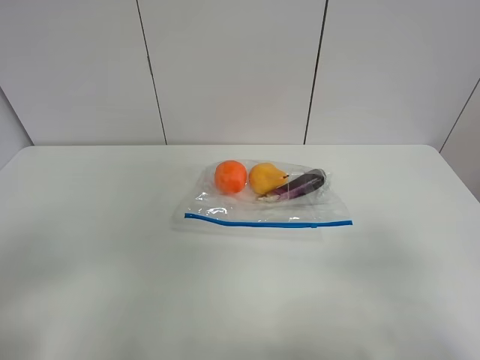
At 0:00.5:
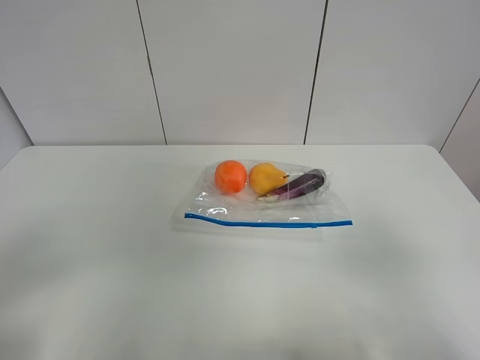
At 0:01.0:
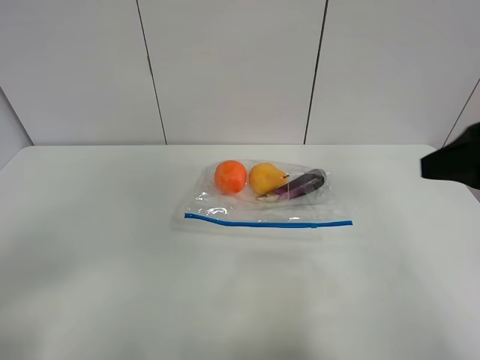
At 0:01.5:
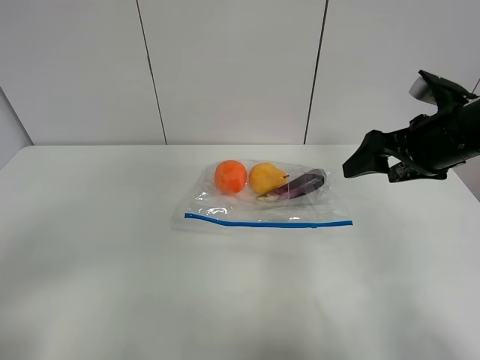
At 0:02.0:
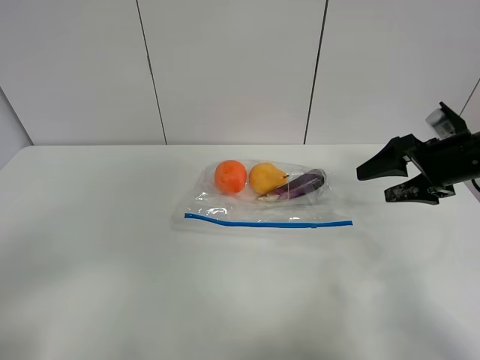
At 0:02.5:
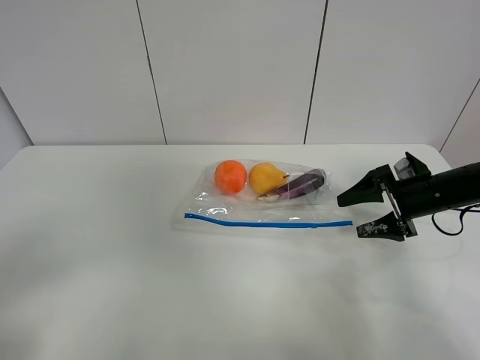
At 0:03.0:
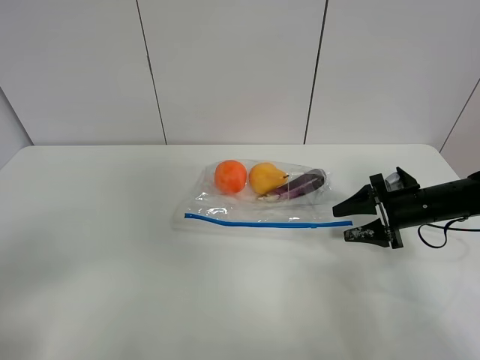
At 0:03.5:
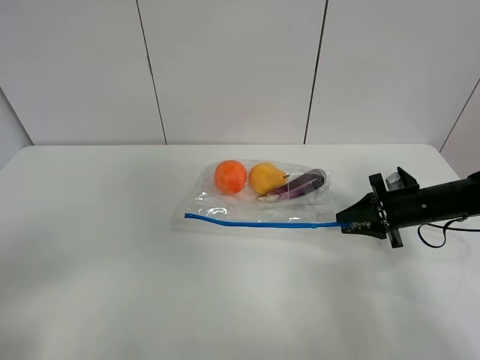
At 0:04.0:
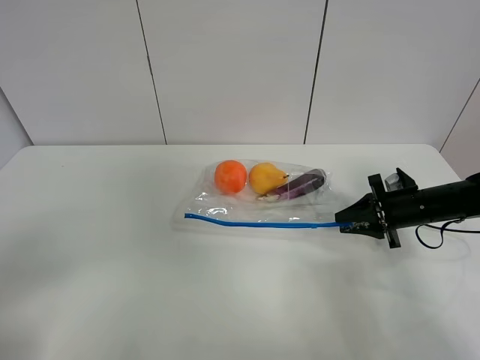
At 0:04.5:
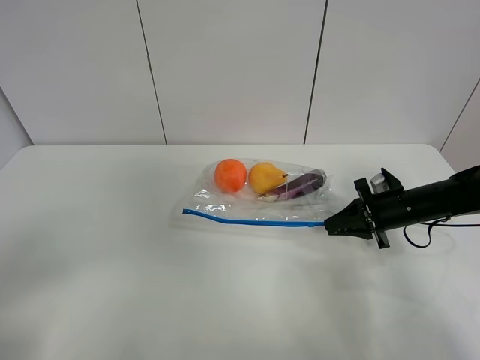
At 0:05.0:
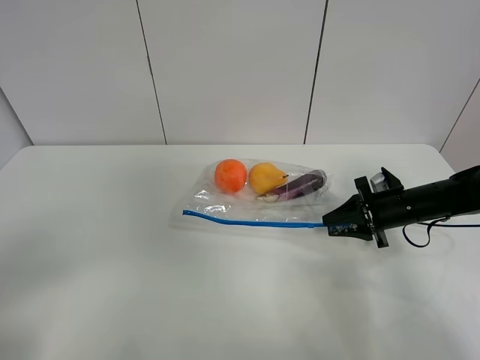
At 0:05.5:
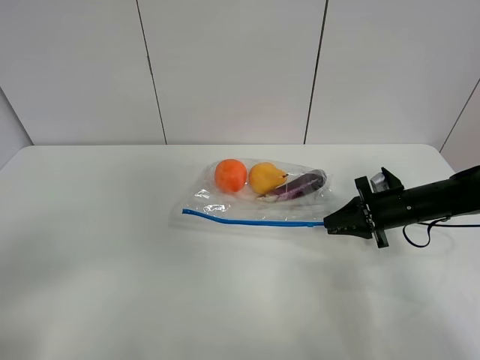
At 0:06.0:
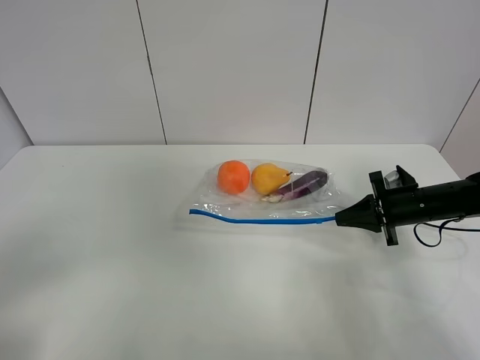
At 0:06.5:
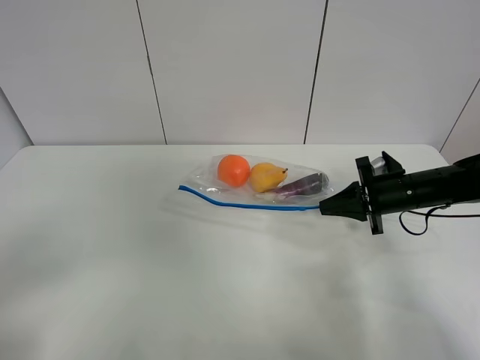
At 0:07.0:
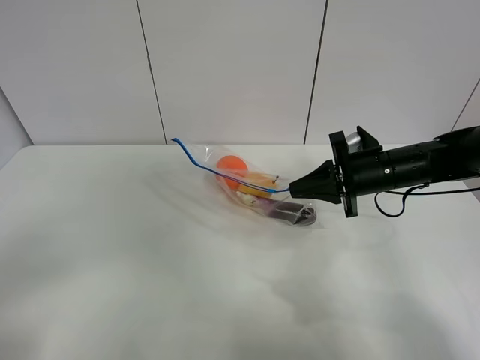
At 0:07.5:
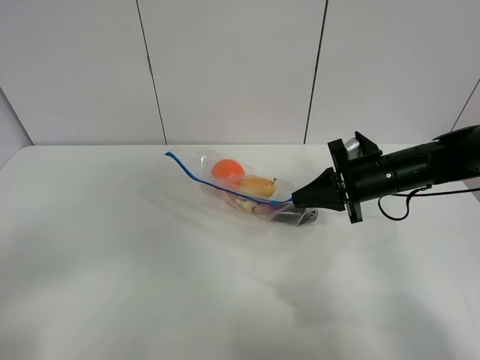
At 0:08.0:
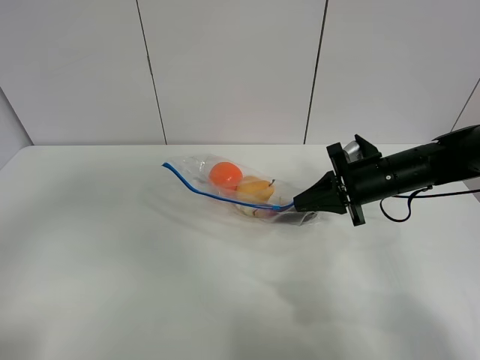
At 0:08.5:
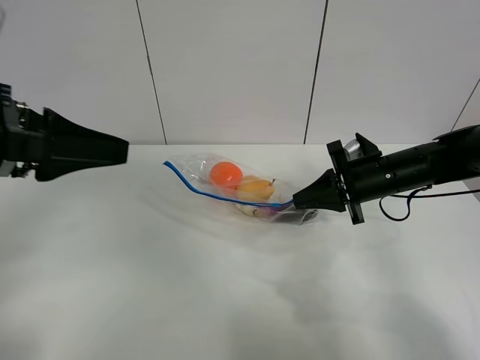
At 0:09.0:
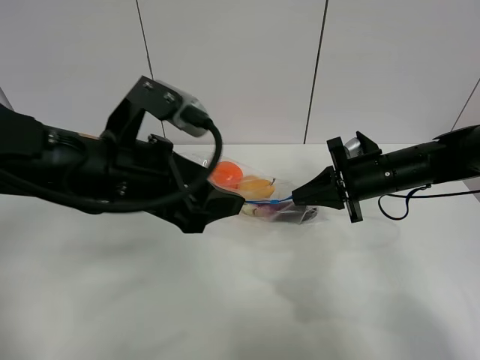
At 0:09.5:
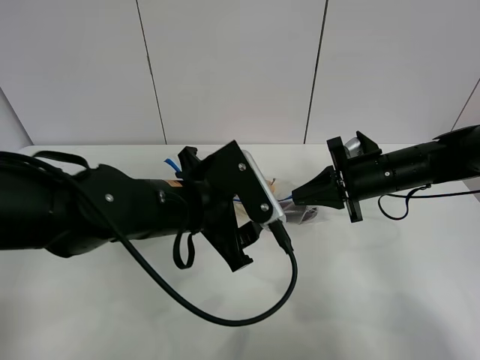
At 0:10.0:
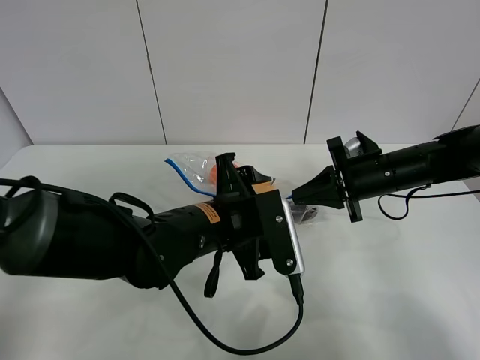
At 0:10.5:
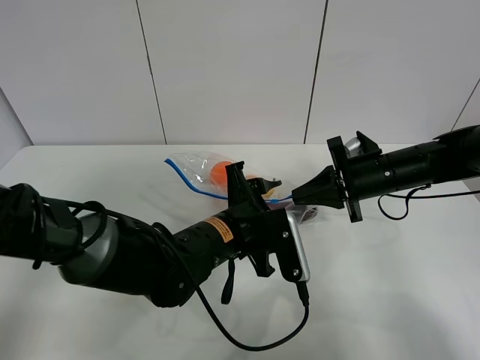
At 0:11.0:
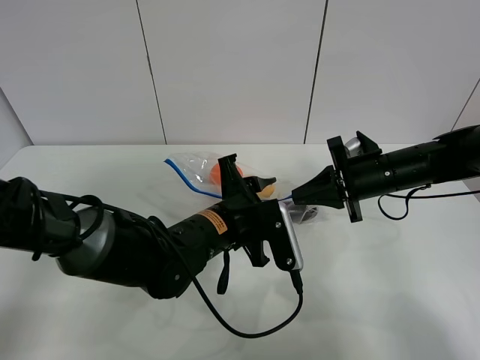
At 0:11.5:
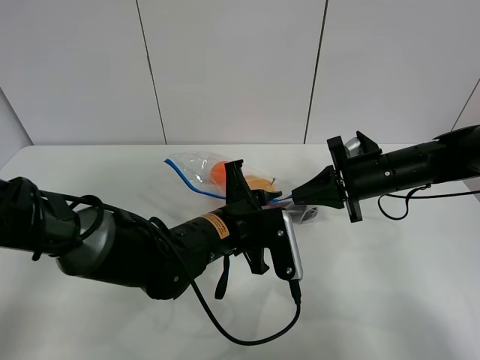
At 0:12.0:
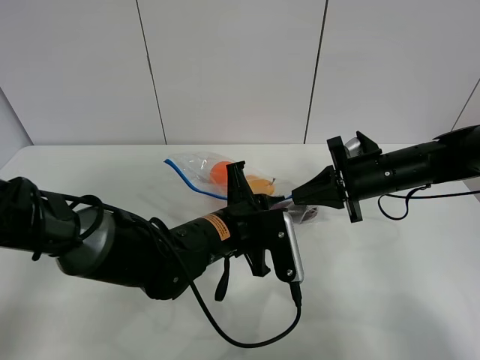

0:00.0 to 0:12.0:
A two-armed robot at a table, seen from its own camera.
Step, 0:00.0 to 0:05.5: Grasp the fruit bag with right gripper.
Step, 0:06.0 to 0:07.0: Lift the fruit bag with your right gripper.
0:00.0 to 0:02.0: The right gripper is displaced forward by about 30 cm.
0:02.0 to 0:04.0: The right gripper shifts roughly 10 cm downward, and closes up.
0:04.0 to 0:06.0: The grippers make only small movements.
0:06.0 to 0:08.0: The right gripper goes roughly 10 cm to the left and upward; the left gripper heads forward and upward, covering approximately 15 cm.
0:08.0 to 0:10.0: The left gripper travels to the right, downward and forward by some 35 cm.
0:10.0 to 0:12.0: The left gripper closes up.

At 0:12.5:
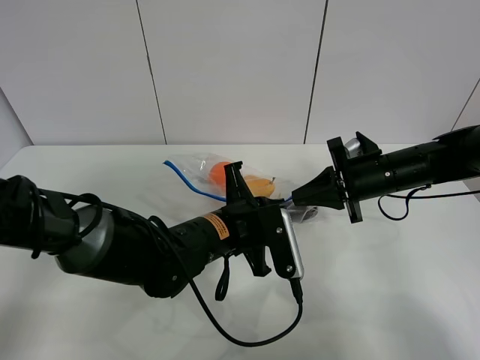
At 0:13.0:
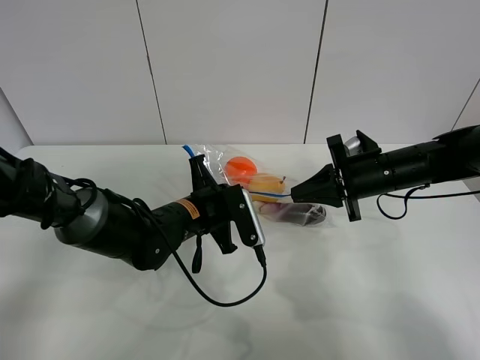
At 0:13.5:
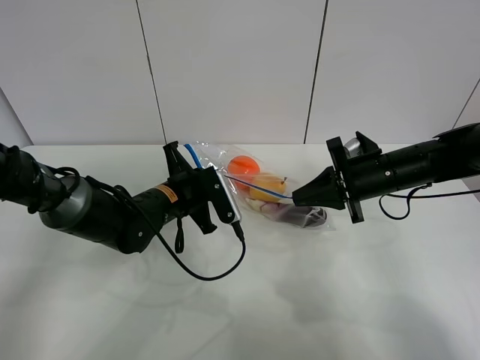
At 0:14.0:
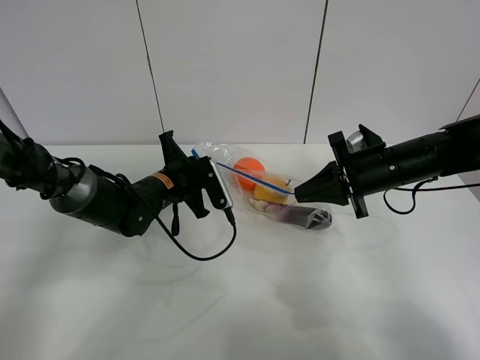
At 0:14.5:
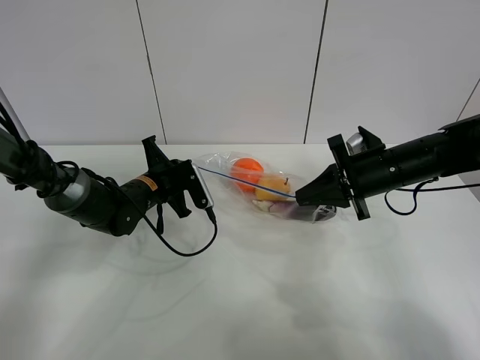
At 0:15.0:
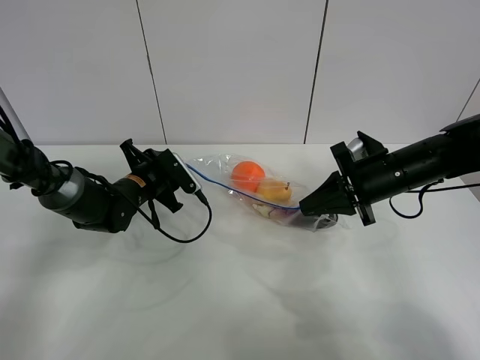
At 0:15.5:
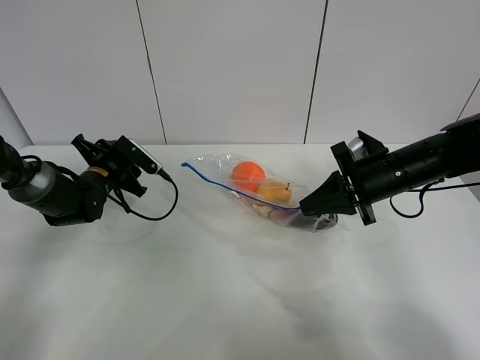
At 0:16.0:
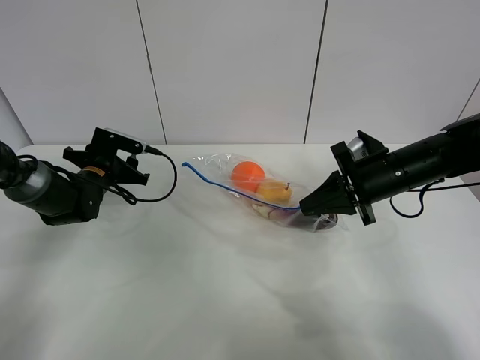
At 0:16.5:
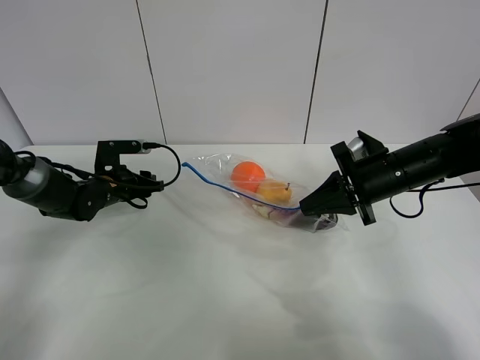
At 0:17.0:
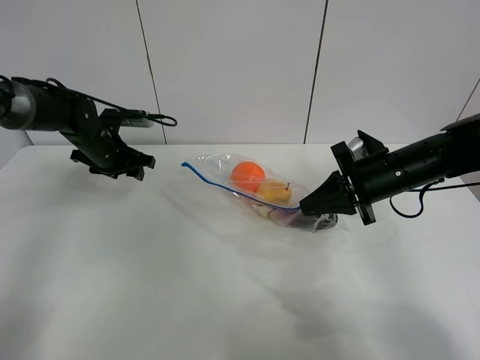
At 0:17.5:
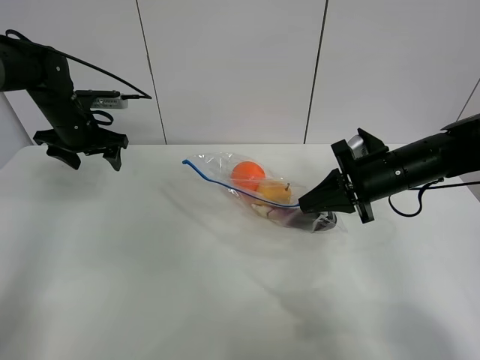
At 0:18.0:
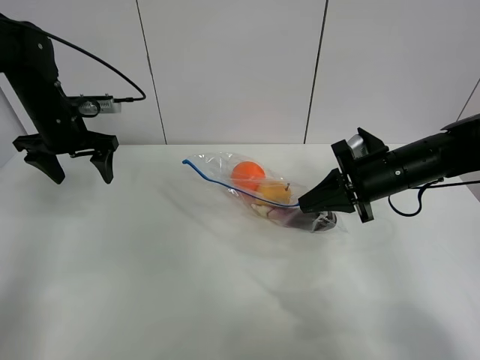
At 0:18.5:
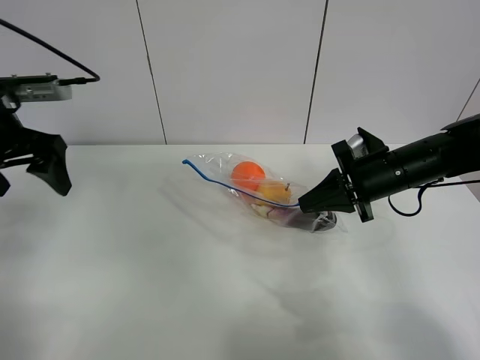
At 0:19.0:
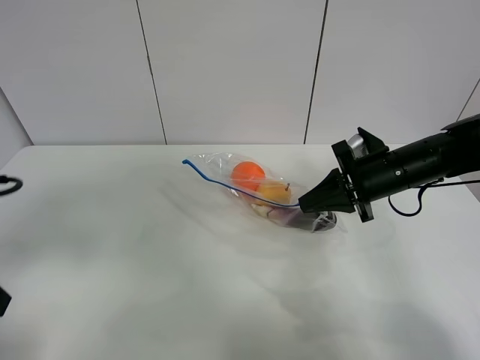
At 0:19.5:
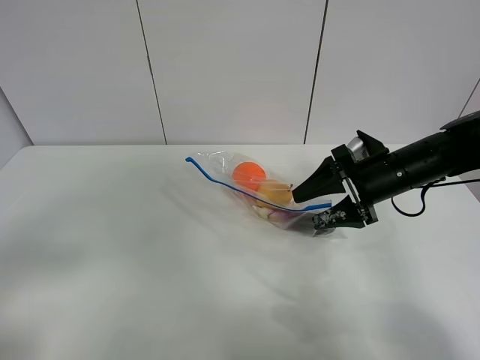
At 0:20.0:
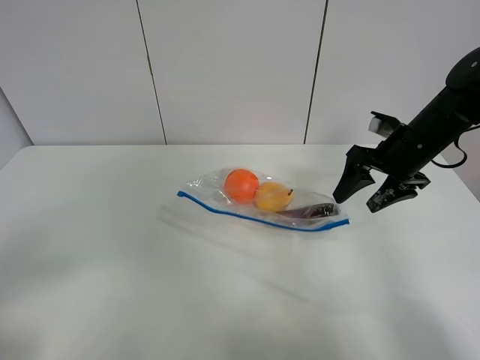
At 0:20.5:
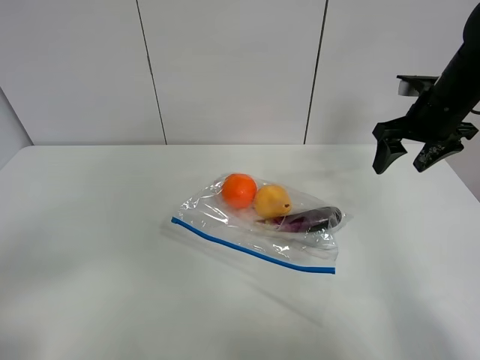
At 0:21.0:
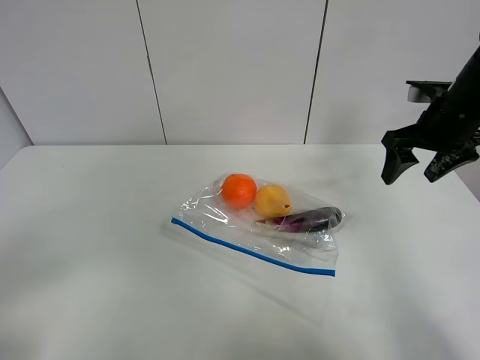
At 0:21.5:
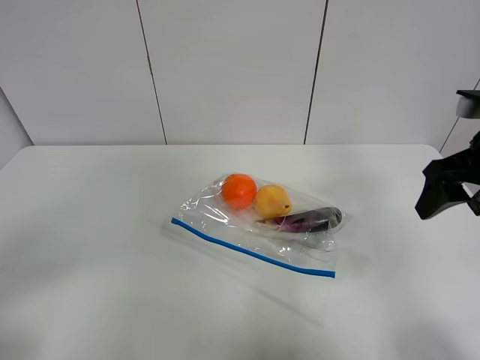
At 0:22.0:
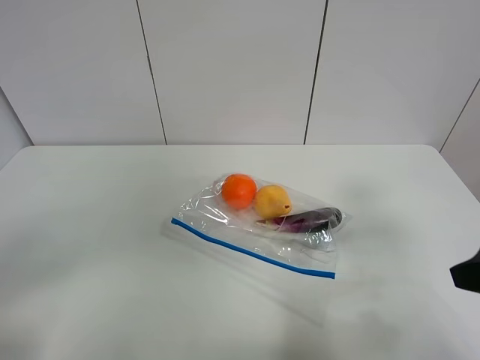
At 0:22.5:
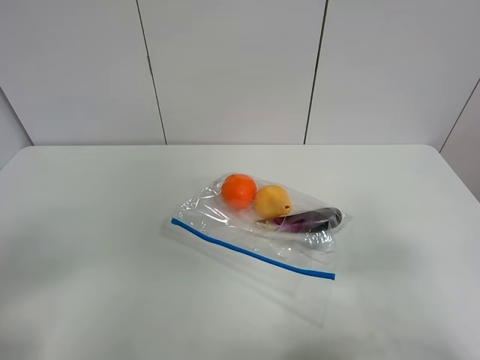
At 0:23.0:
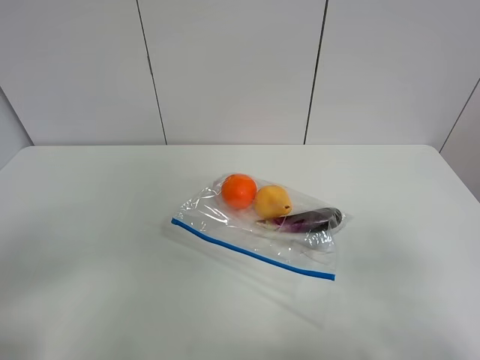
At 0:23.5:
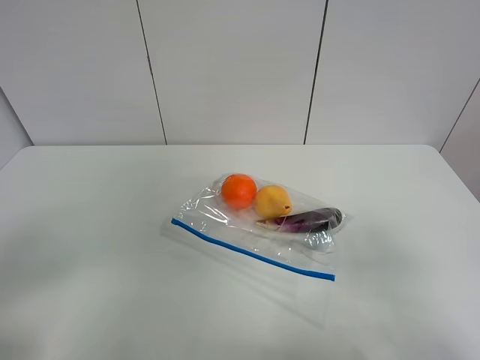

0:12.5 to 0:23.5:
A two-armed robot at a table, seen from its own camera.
Step, 0:12.5 to 0:15.0: Pull the fruit bag with left gripper.
0:12.5 to 0:14.5: The left gripper moves to the left and forward, approximately 20 cm.
0:14.5 to 0:16.0: The left gripper goes about 10 cm to the left, and opens up.
0:16.0 to 0:18.0: The left gripper shifts about 15 cm upward.
0:18.0 to 0:20.0: The left gripper moves backward, about 40 cm. The right gripper ends up about 5 cm from where it was, and opens.
0:20.0 to 0:21.5: The right gripper shifts approximately 15 cm backward and upward.
0:21.5 to 0:23.5: The right gripper moves backward, roughly 25 cm.

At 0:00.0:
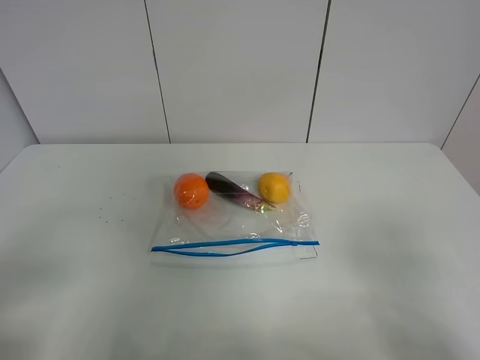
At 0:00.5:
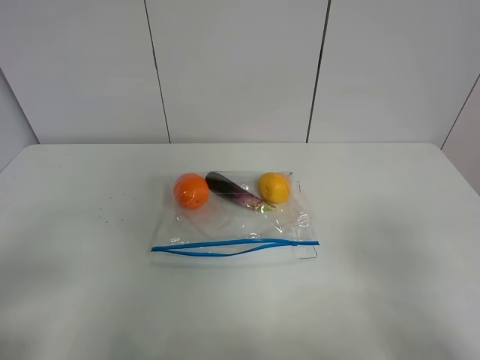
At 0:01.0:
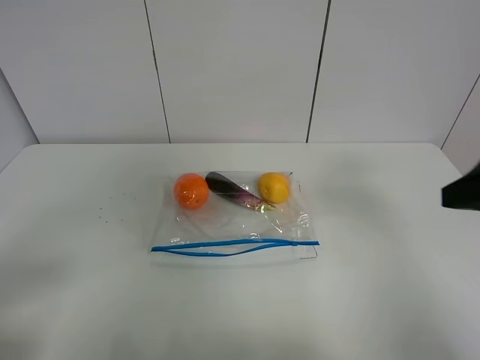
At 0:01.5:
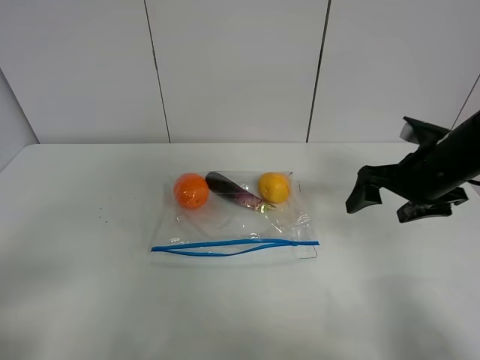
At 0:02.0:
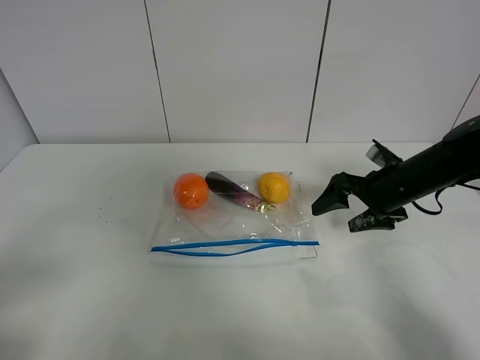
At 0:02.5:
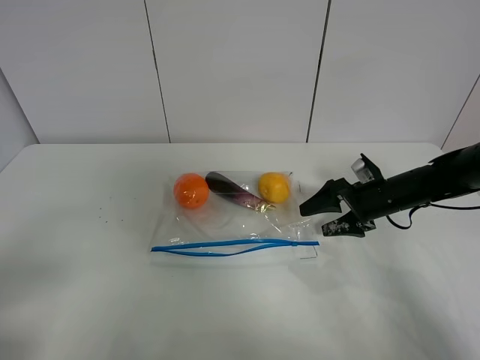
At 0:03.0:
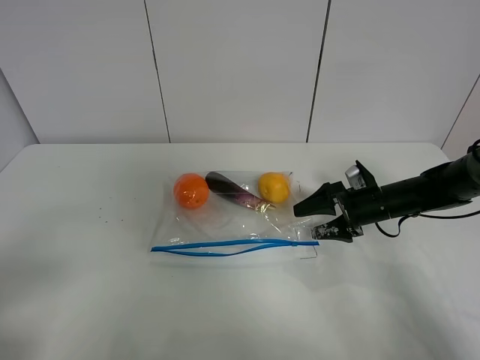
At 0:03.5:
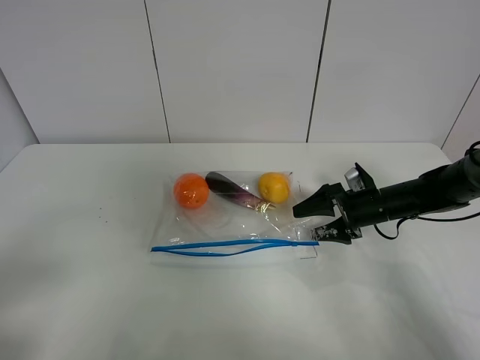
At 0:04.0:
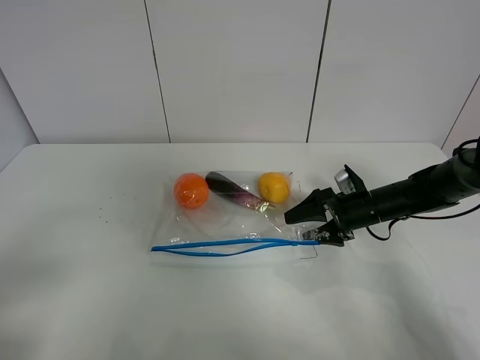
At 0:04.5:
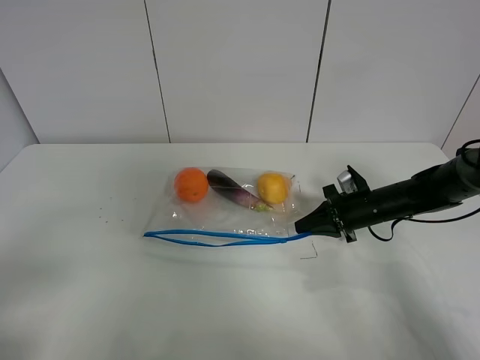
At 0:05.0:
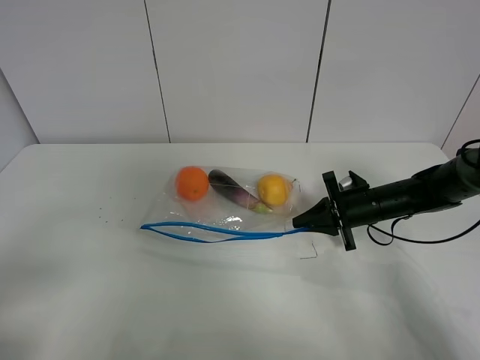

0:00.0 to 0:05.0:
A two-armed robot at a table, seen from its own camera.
Step, 0:00.0 to 0:04.5: Grasp the fruit bag with right gripper.
0:00.0 to 0:02.5: The right gripper goes roughly 40 cm forward and downward.
0:02.5 to 0:05.0: The right gripper closes up.
